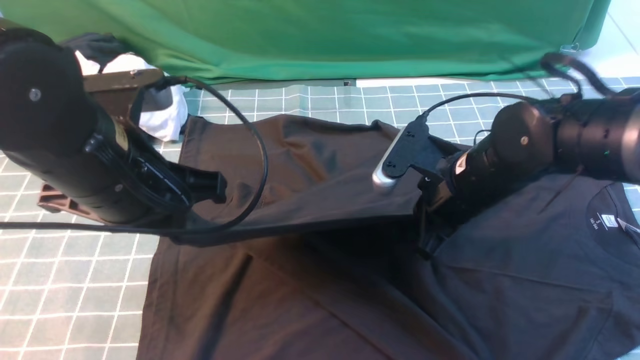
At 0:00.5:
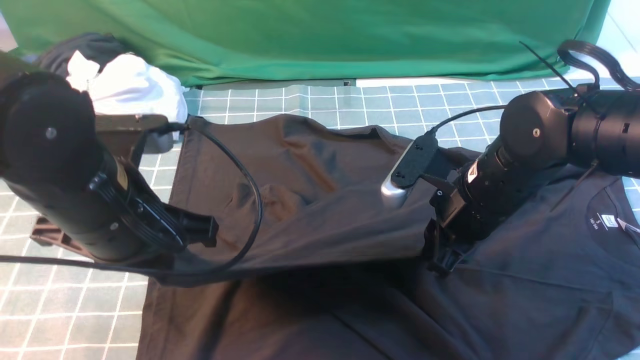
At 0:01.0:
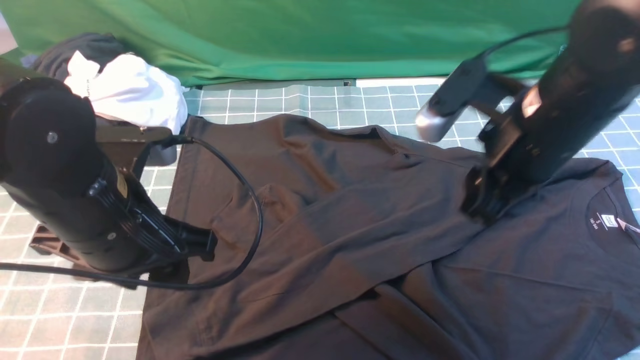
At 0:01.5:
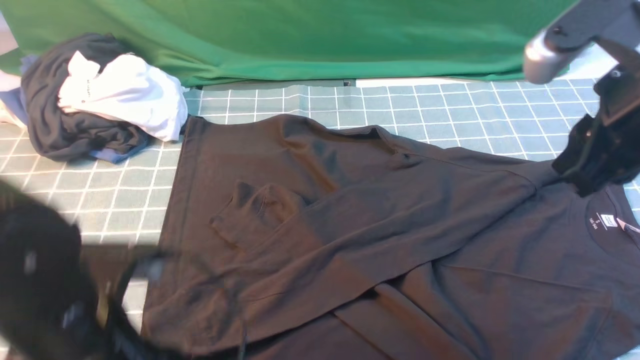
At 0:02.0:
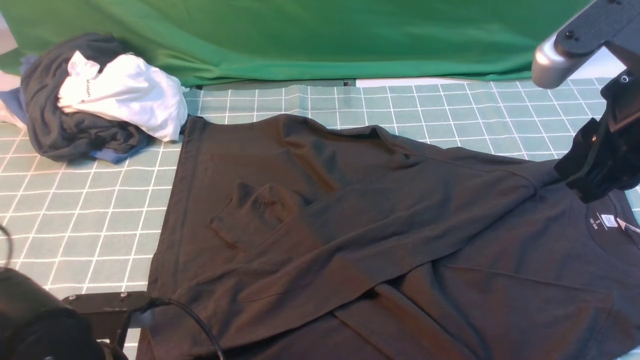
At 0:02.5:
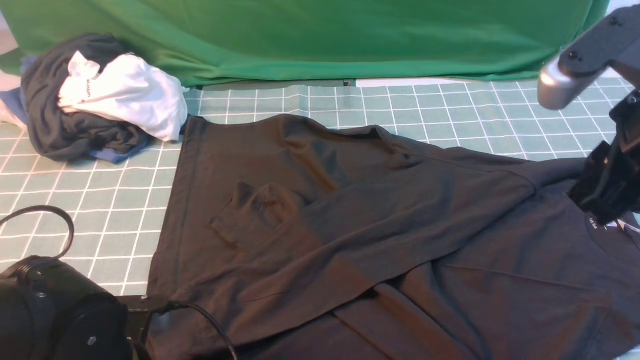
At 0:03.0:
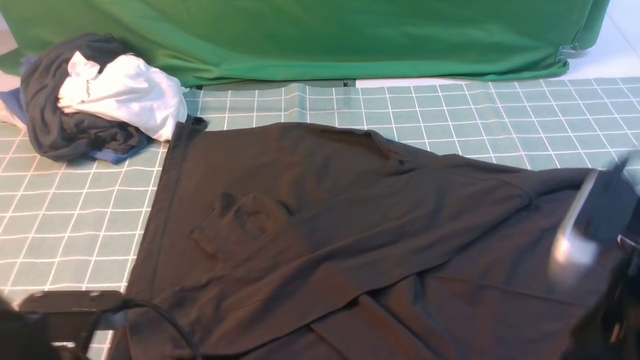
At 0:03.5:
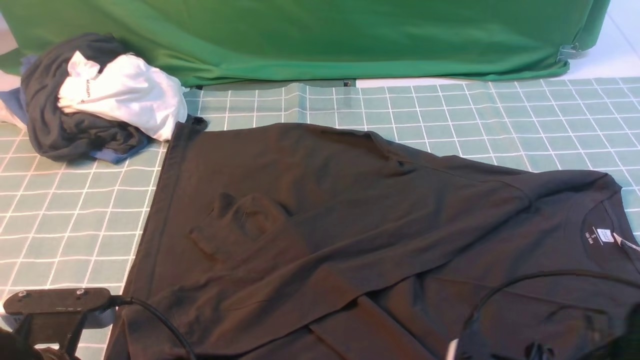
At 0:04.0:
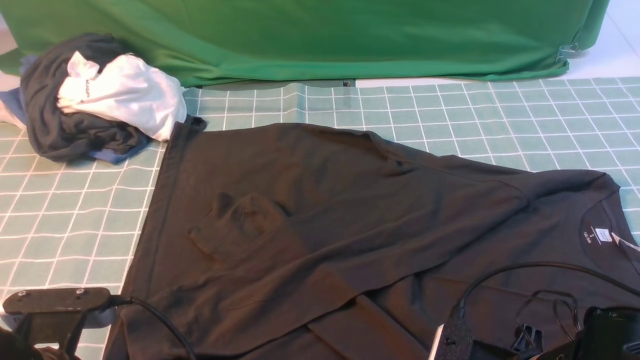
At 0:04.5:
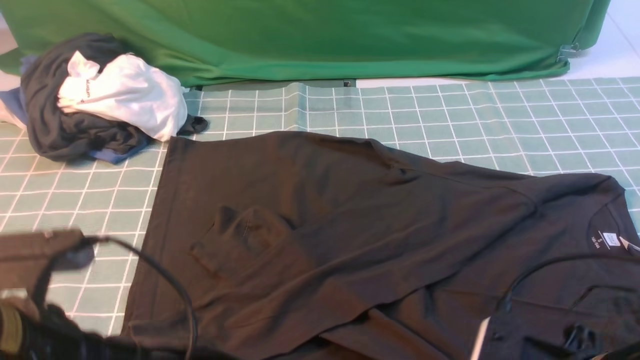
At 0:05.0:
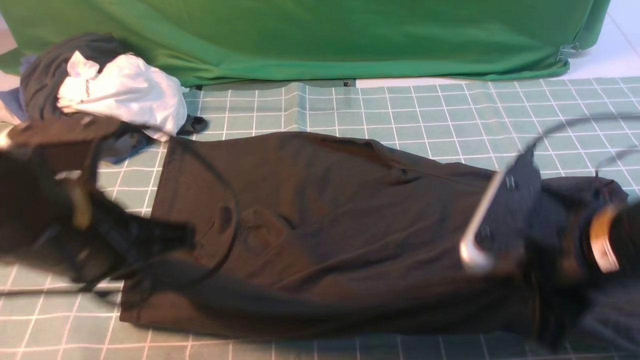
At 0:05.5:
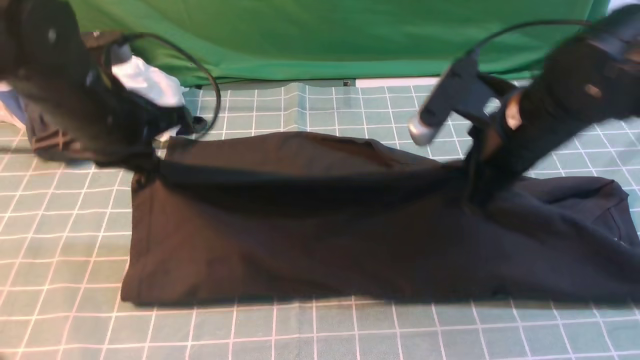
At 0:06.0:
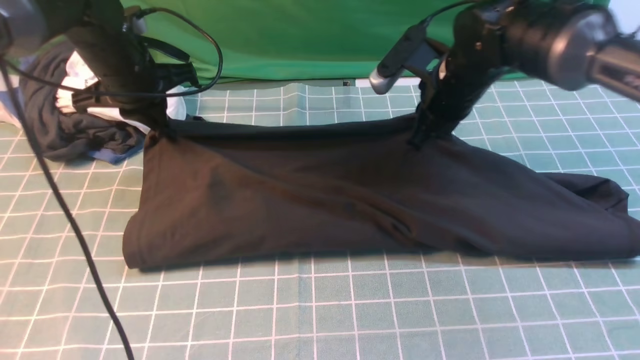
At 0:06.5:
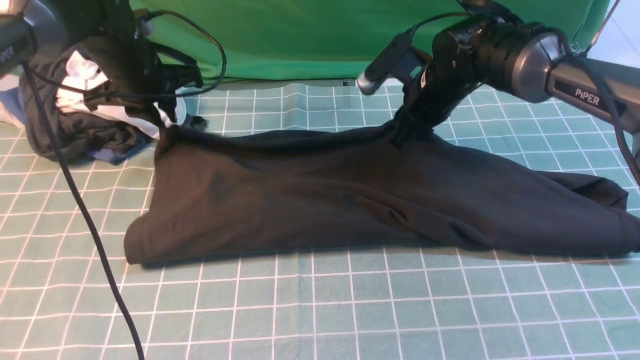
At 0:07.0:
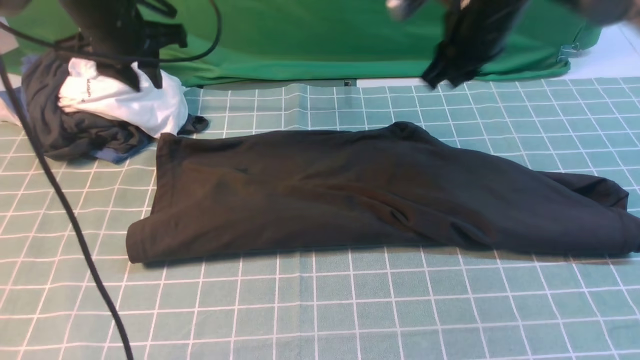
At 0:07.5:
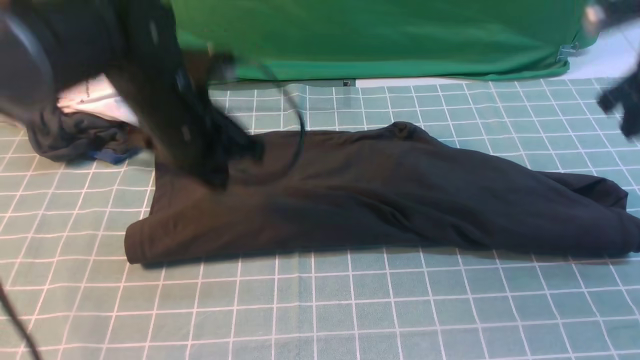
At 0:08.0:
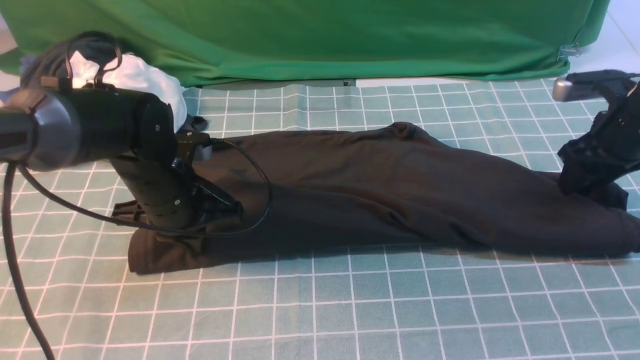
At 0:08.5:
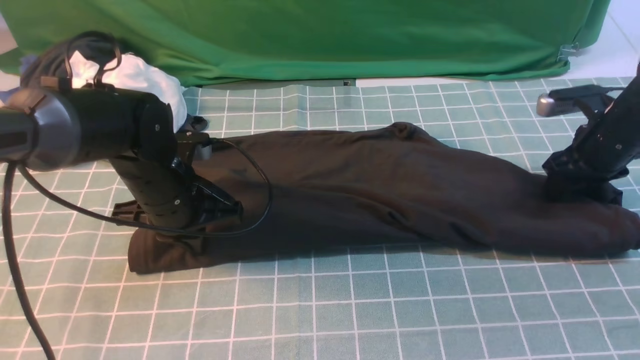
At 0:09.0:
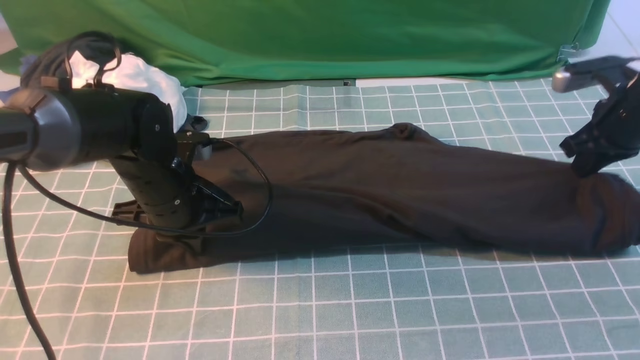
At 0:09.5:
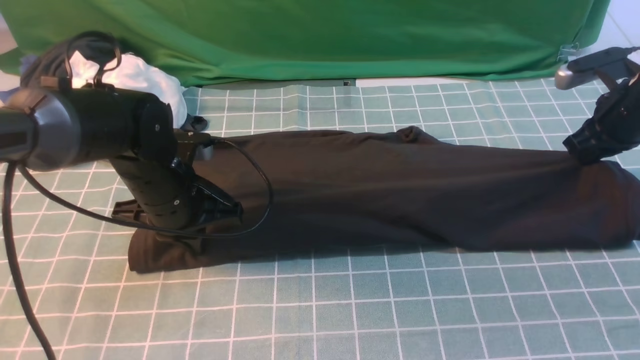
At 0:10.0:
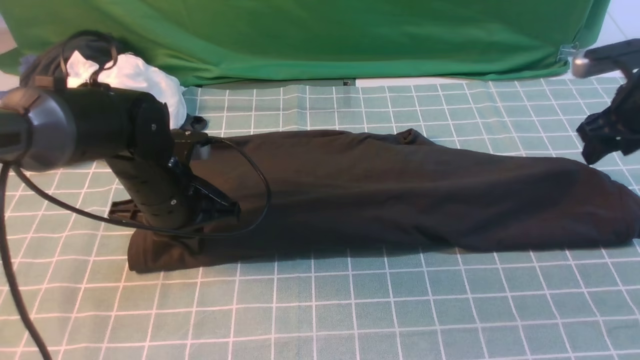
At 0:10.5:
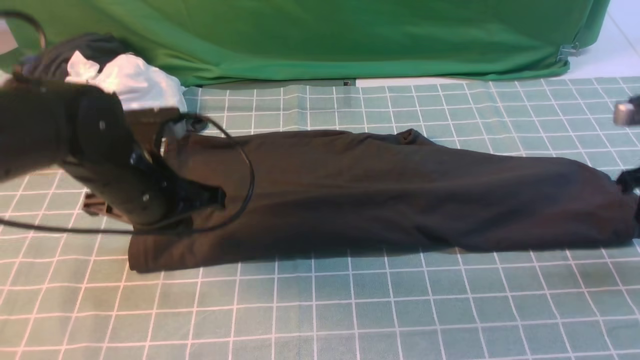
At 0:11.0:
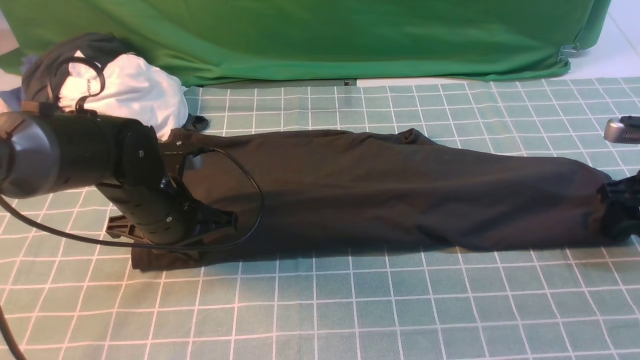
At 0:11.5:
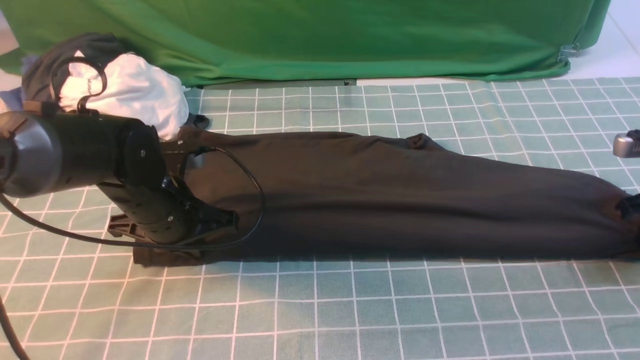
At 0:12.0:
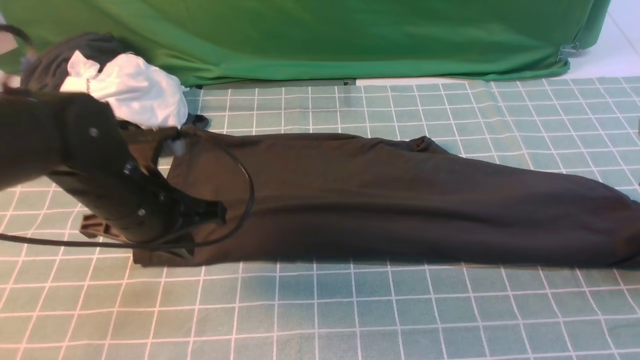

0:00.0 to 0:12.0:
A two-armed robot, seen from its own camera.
Step, 0:01.5 to 0:04.0: use both arms simultaneously to clamp the lower edge of the clothing fabric.
Step, 0:04.5 to 0:06.5: use both arms to drag the lower edge of the fabric forward and fold it over the upper edge.
0:00.0 to 0:02.0: The right gripper heads upward, backward and to the right, covering approximately 20 cm, and opens its fingers. Meanwhile the left gripper goes roughly 15 cm downward and backward, and opens its fingers.
0:02.0 to 0:04.0: The right gripper travels downward and backward by some 25 cm, and opens and closes again, while the left gripper moves about 5 cm, and closes up.
0:04.0 to 0:06.0: The two grippers go roughly 35 cm forward.
0:06.0 to 0:08.0: The right gripper shifts some 20 cm to the right, and opens. Meanwhile the left gripper moves backward, downward and to the right, about 15 cm.
0:08.0 to 0:10.0: The right gripper closes, then opens again.
0:10.0 to 0:12.0: The left gripper ends up roughly 5 cm from where it was. Meanwhile the right gripper is displaced backward by about 5 cm, and opens.

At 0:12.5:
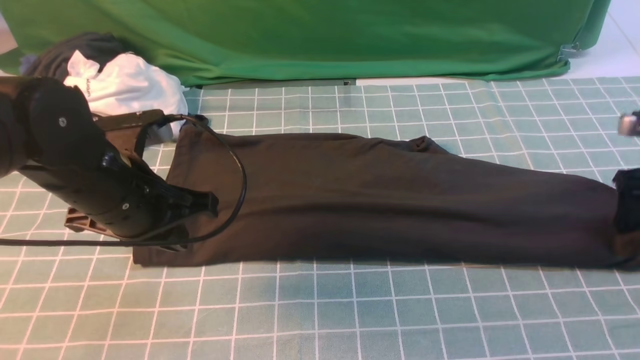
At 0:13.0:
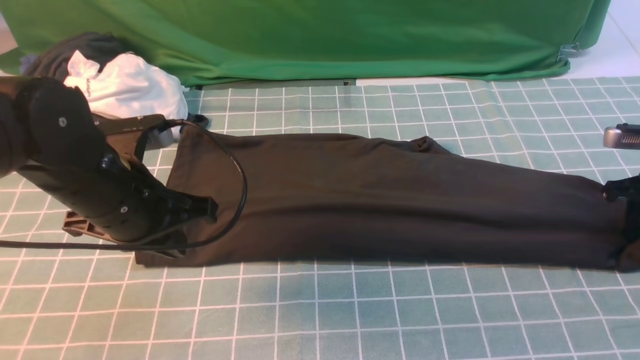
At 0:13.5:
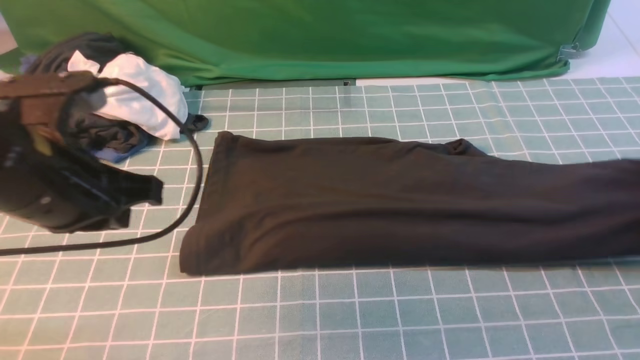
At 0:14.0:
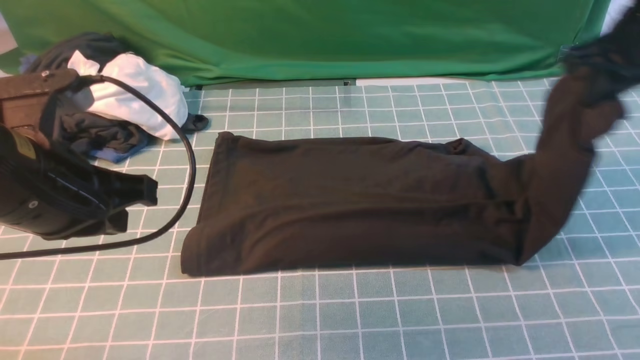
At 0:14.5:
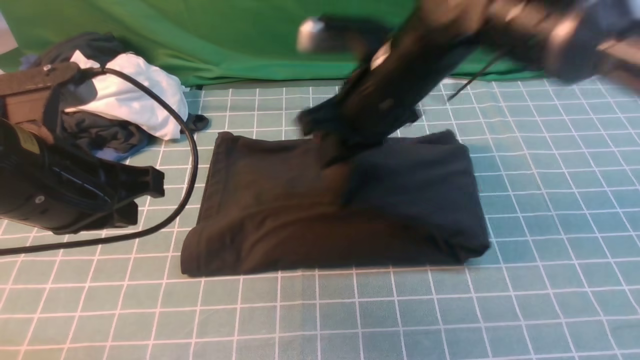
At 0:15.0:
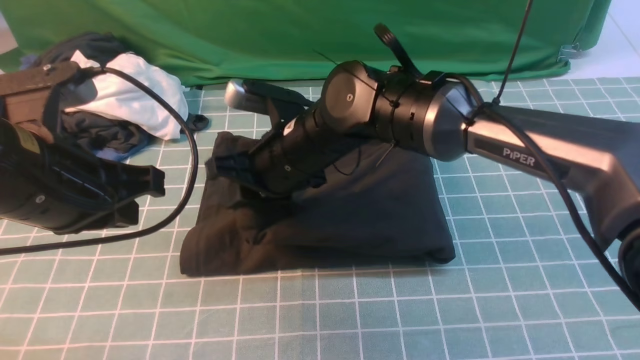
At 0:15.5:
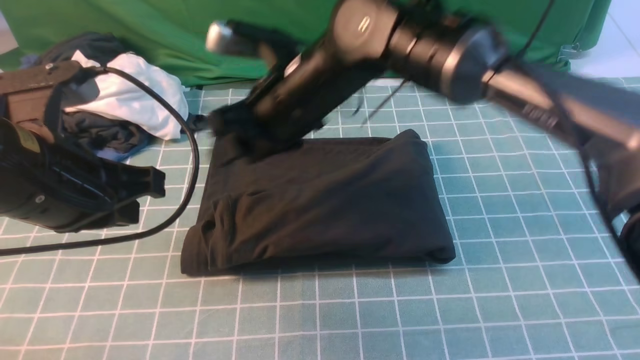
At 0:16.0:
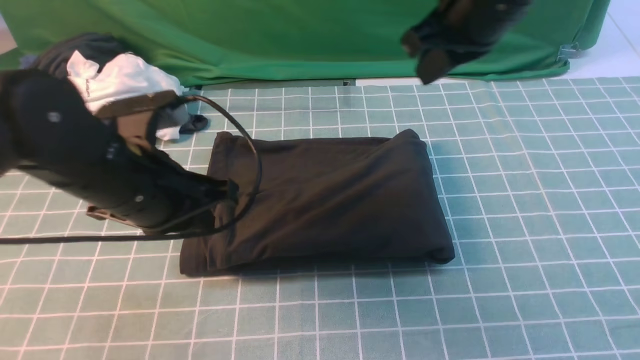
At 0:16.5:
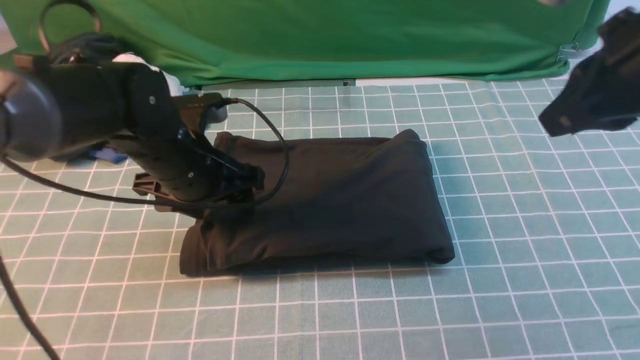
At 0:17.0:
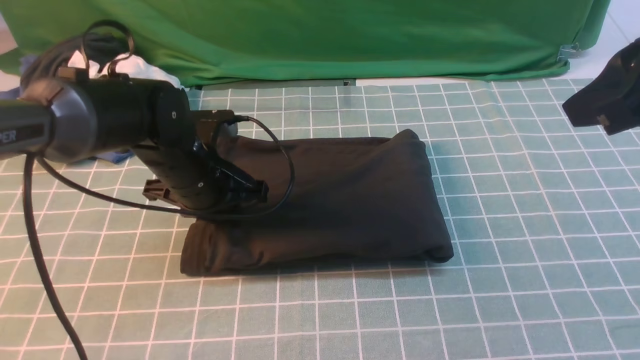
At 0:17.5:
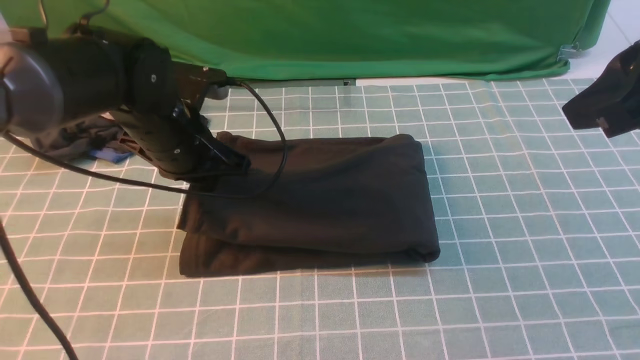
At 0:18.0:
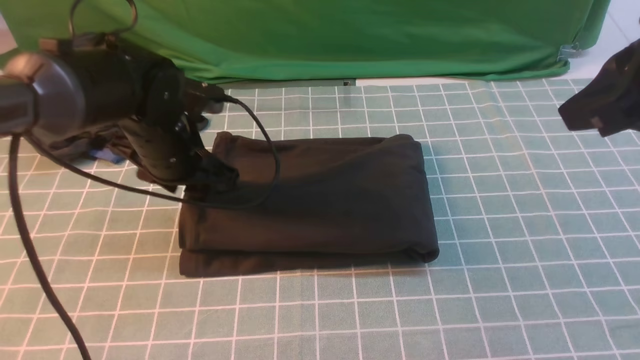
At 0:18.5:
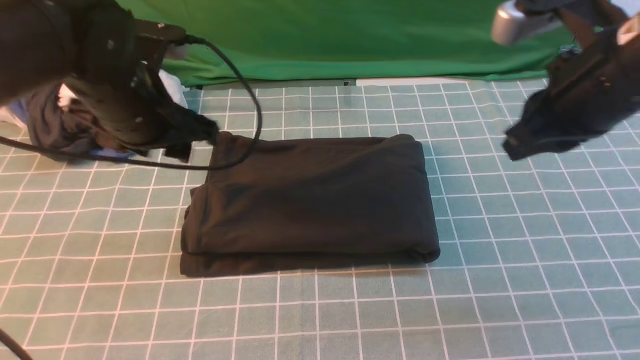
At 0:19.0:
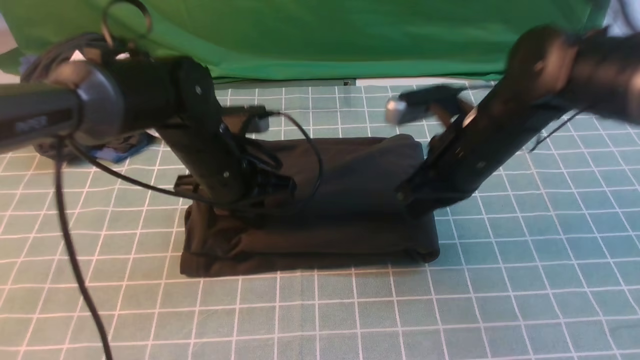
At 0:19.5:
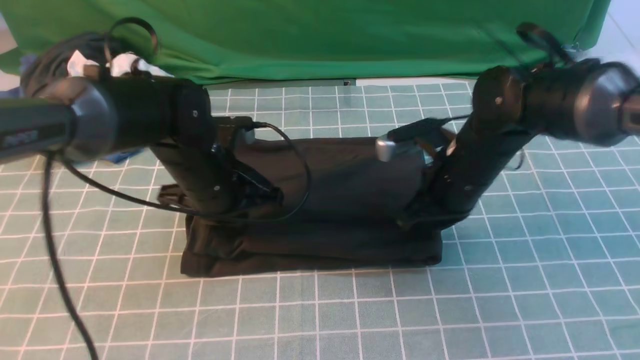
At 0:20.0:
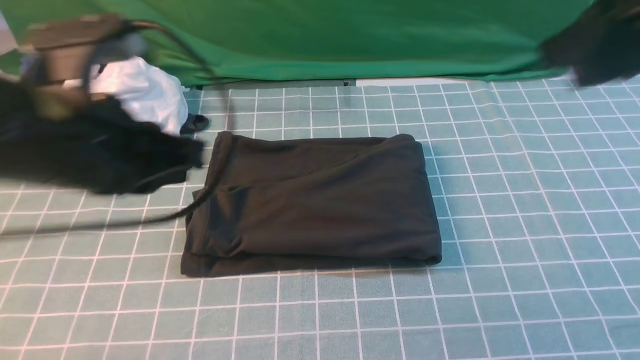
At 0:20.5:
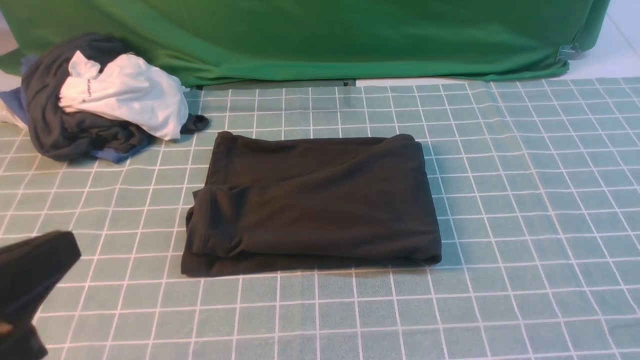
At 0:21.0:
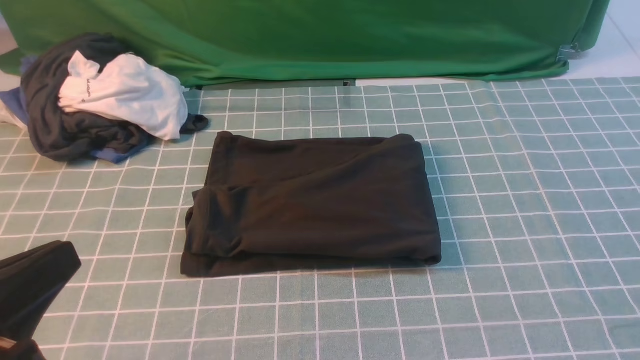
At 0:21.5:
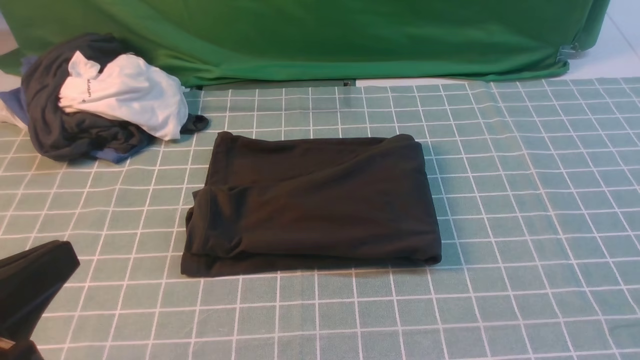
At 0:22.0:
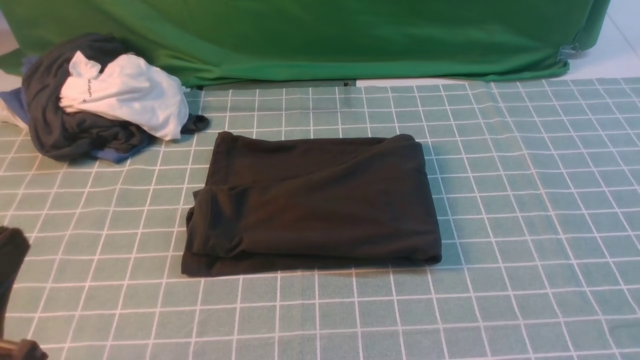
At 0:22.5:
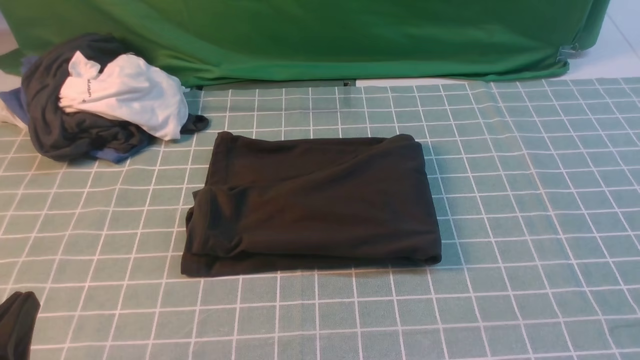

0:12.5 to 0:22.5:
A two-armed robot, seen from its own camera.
Step, 0:14.0 to 0:15.5: use the right arm to drag the right edge of the fabric to the left and folds it over the left edge.
0:12.5 to 0:14.5: The right gripper heads to the left, covering approximately 35 cm, and closes its fingers, while the left gripper shifts some 10 cm upward and backward.
0:14.5 to 0:16.5: The right gripper travels to the right, upward and backward by about 25 cm, and opens, then closes again. Meanwhile the left gripper is displaced forward and downward by about 15 cm, and opens up.
0:16.5 to 0:18.5: The left gripper heads upward, covering approximately 5 cm, and closes its fingers, while the right gripper moves downward, roughly 5 cm.
0:18.5 to 0:20.5: The left gripper shifts about 25 cm backward, and closes; the right gripper heads backward and to the right, covering some 30 cm.
0:20.5 to 0:22.5: The left gripper goes roughly 10 cm downward.
